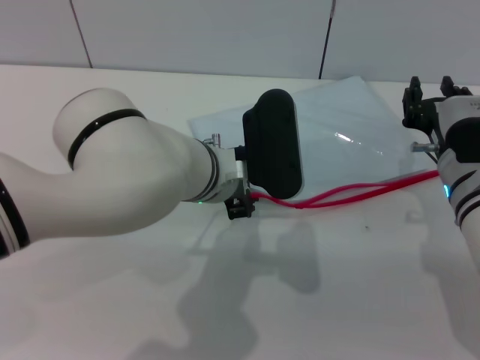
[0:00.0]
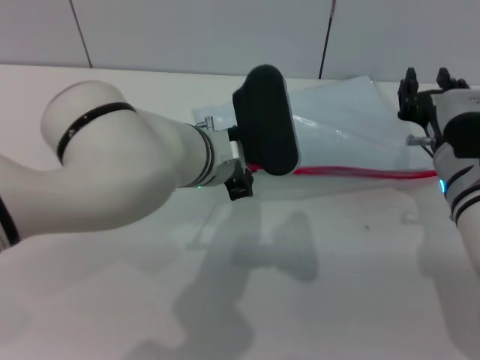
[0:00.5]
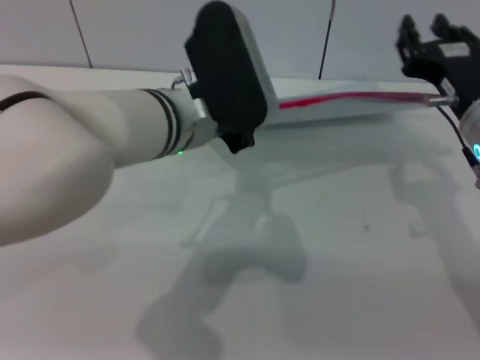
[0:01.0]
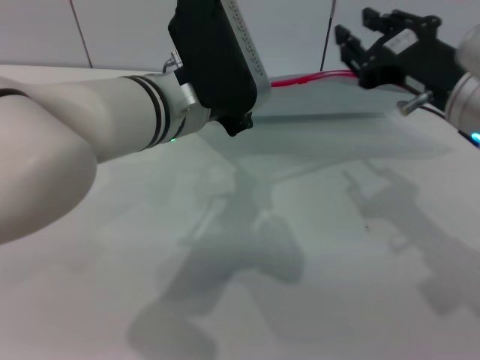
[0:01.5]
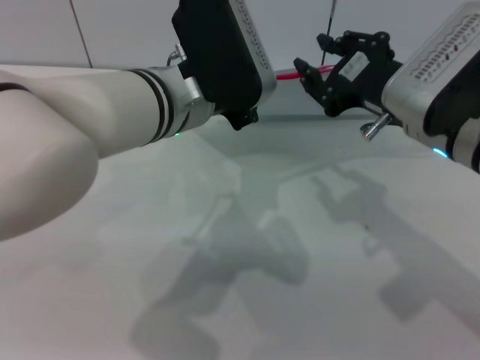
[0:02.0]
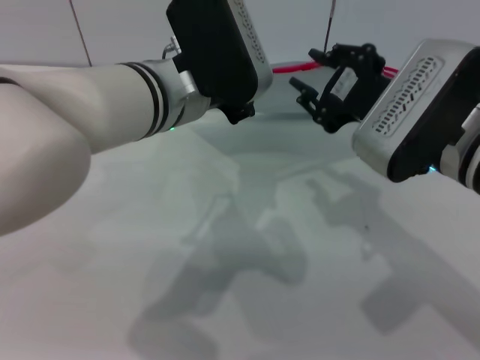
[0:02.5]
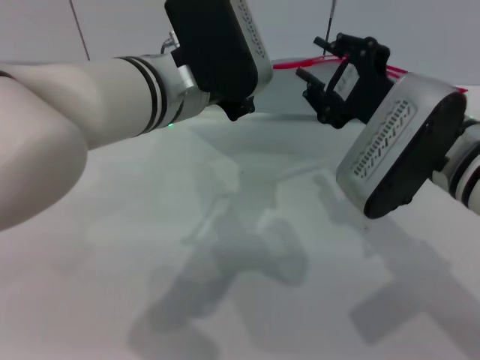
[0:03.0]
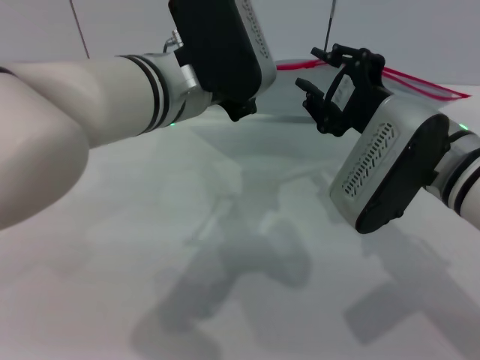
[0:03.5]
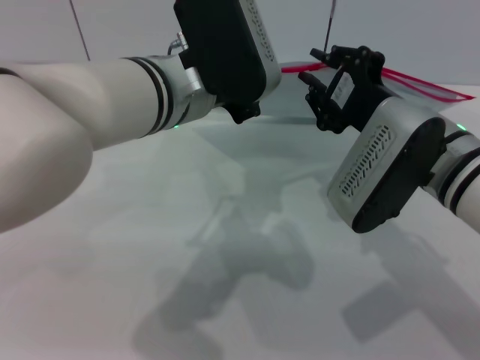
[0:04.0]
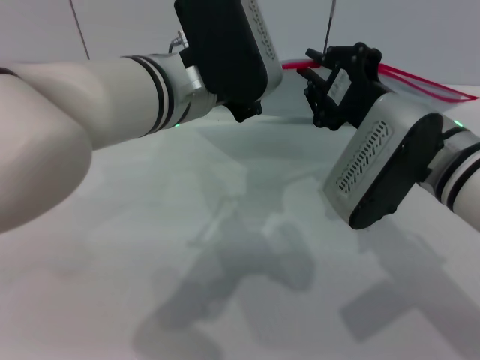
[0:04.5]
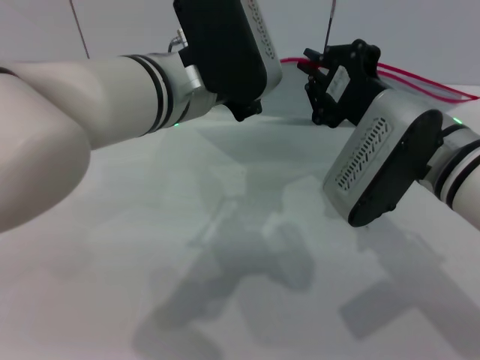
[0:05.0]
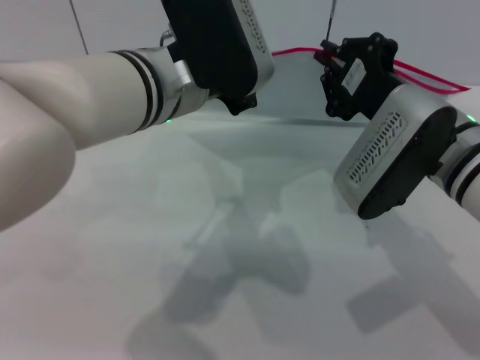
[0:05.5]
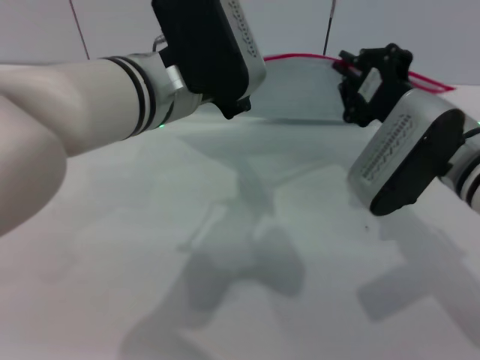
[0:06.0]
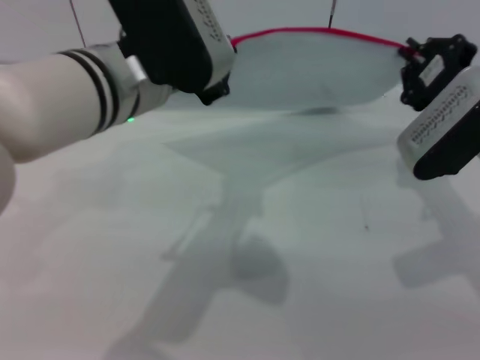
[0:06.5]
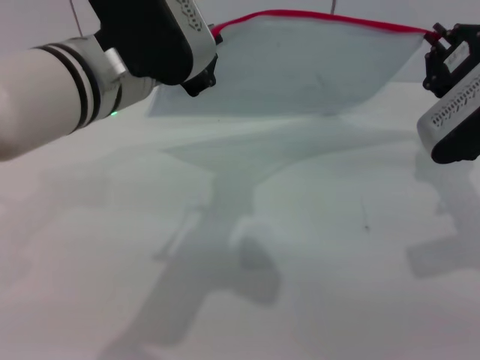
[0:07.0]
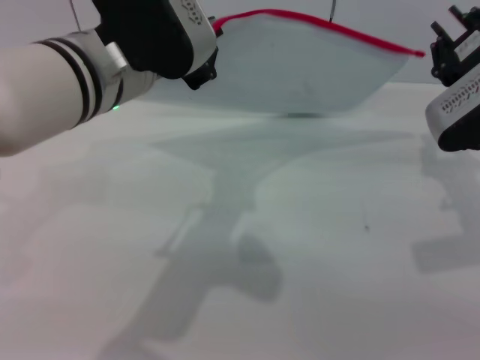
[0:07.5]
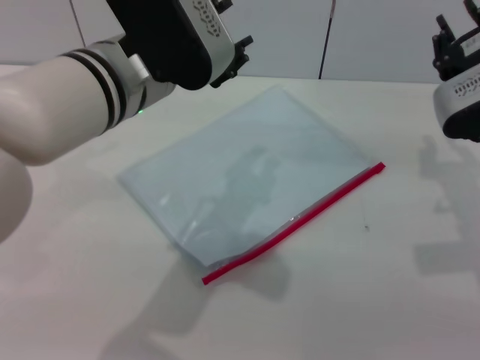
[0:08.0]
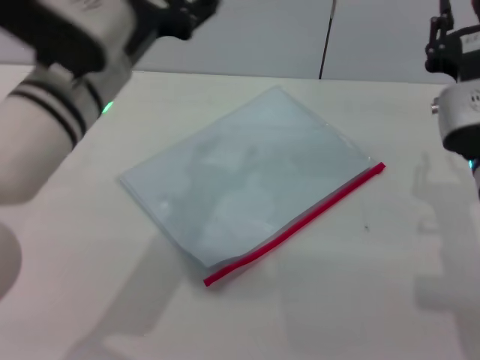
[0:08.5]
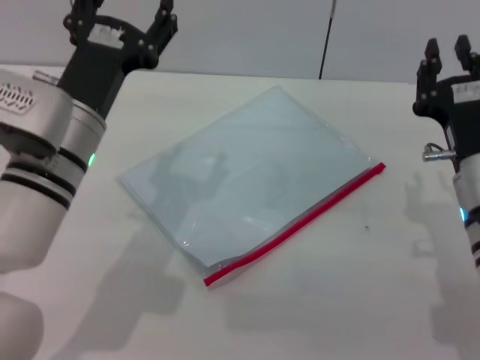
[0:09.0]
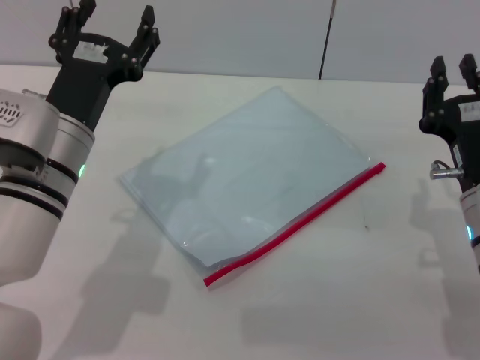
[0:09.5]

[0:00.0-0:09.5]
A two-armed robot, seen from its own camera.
Step, 0:01.0 to 0:07.5: Pulling up the zipper on the transparent plastic bag with the right gripper to close it.
Step, 0:08.0 to 0:09.0: Place the transparent plastic bag.
0:00.0 to 0:02.0: Both grippers move upward, approximately 10 cm. The left gripper closes its fingers.
0:04.0 to 0:05.5: The right gripper closes up.
0:05.5 to 0:07.5: The right gripper goes approximately 10 cm to the right.
0:07.5 to 0:09.5: The left gripper travels downward and to the left by approximately 15 cm, and opens its fingers, while the right gripper is displaced backward and downward by about 10 cm, and opens its fingers.

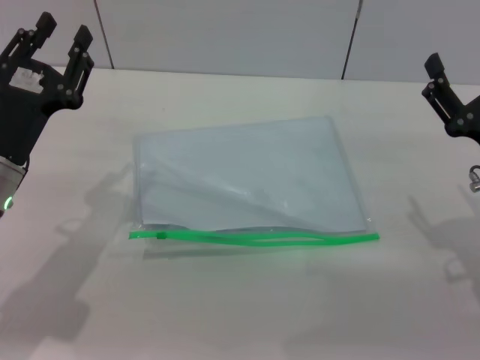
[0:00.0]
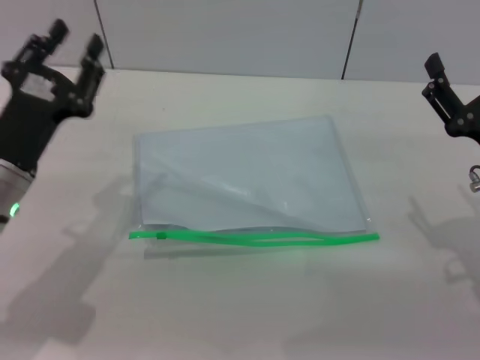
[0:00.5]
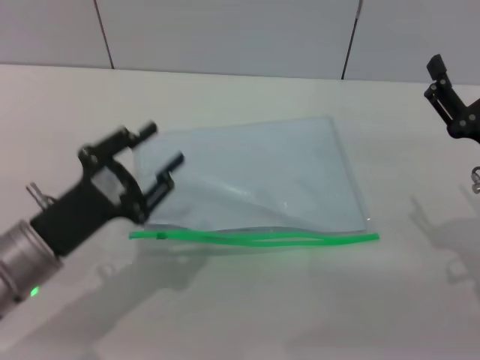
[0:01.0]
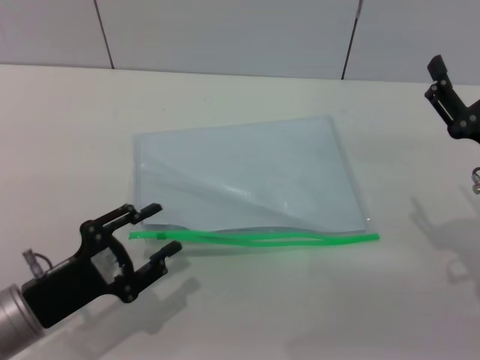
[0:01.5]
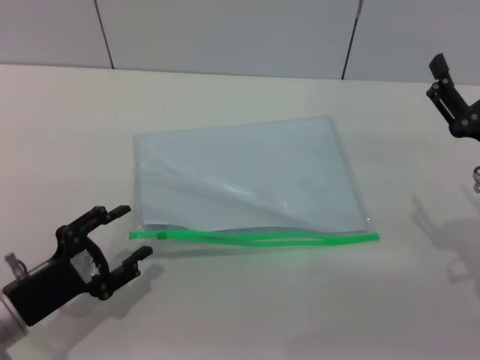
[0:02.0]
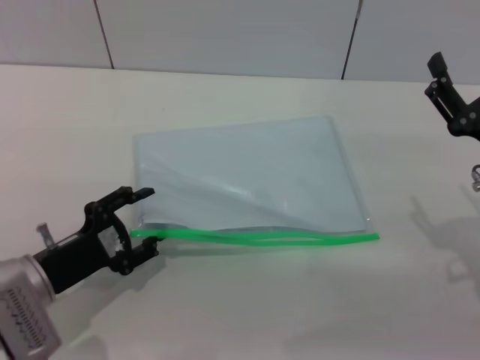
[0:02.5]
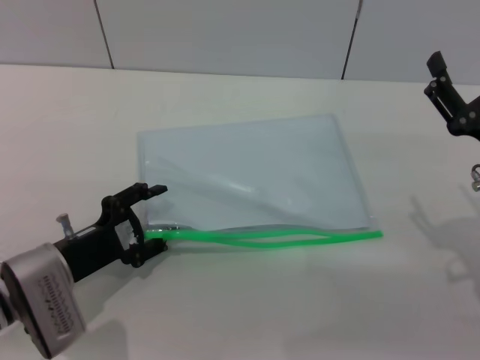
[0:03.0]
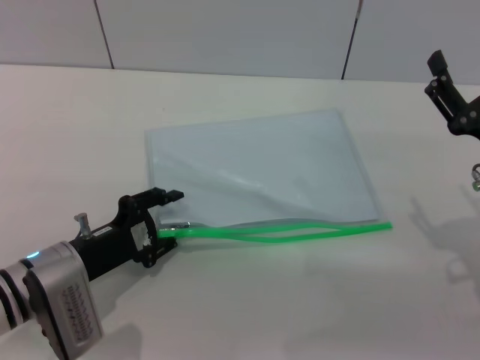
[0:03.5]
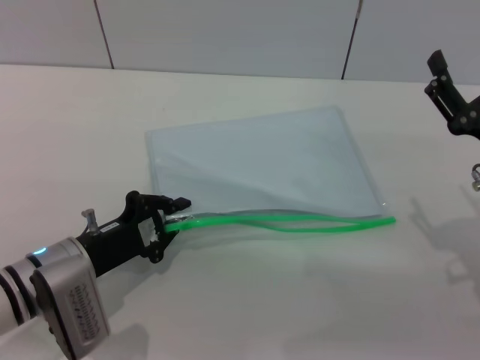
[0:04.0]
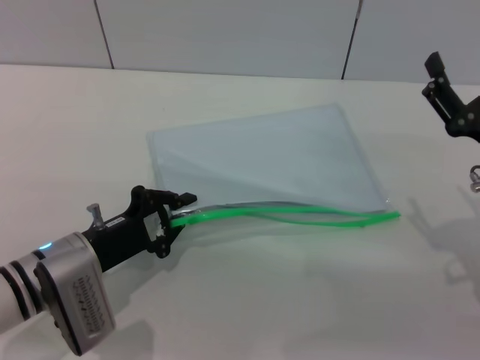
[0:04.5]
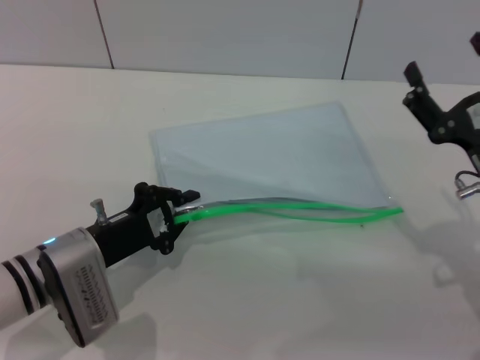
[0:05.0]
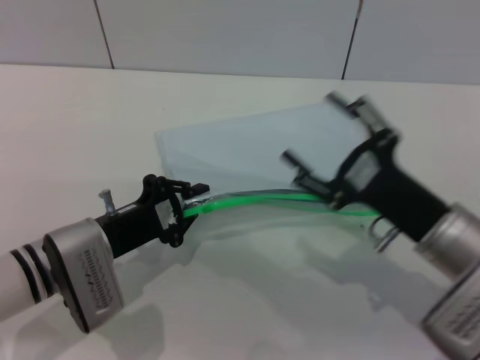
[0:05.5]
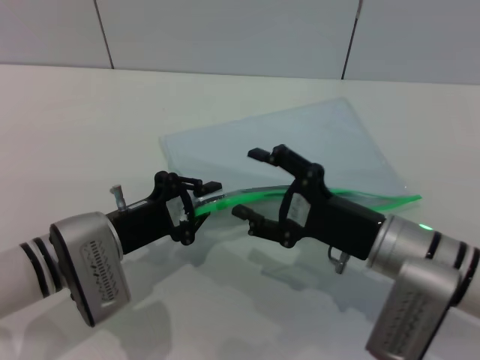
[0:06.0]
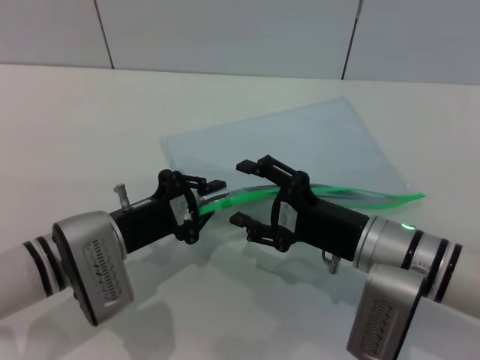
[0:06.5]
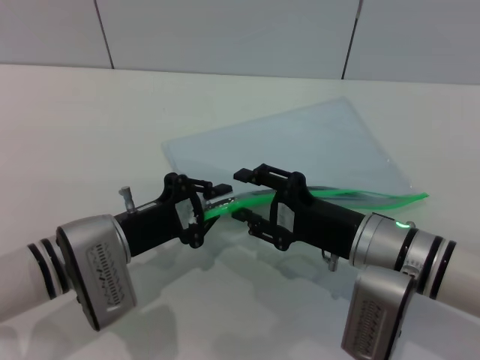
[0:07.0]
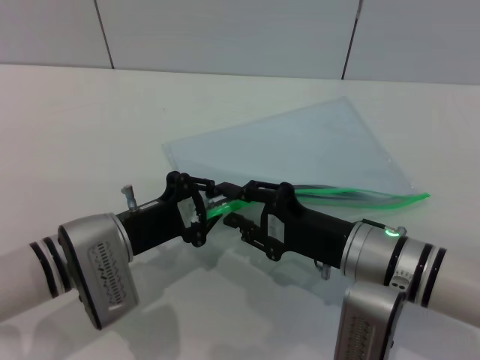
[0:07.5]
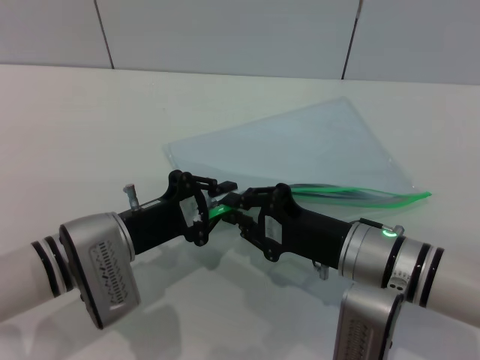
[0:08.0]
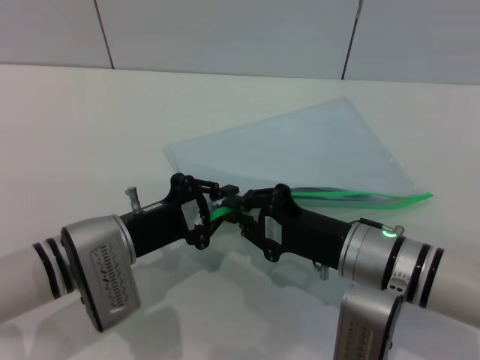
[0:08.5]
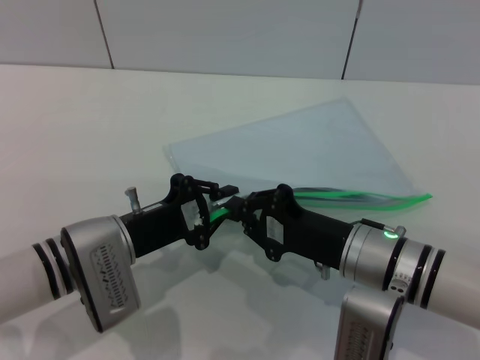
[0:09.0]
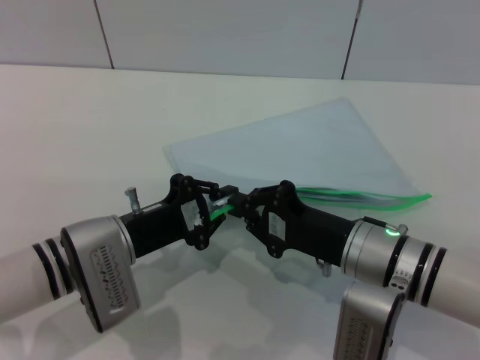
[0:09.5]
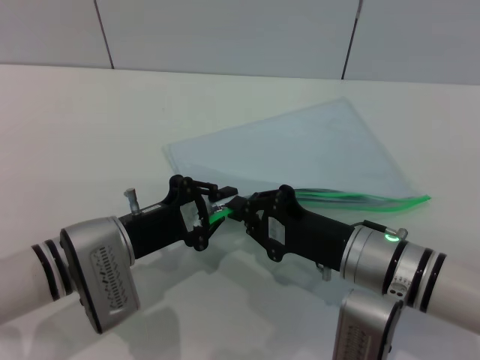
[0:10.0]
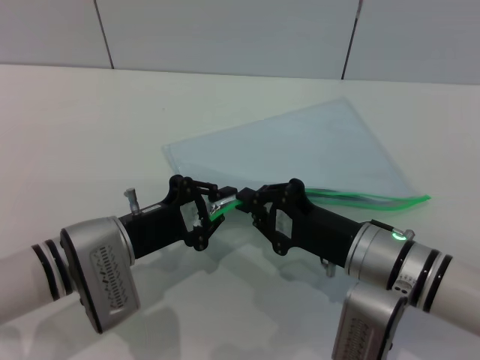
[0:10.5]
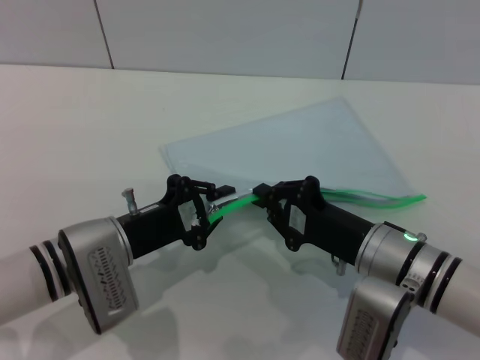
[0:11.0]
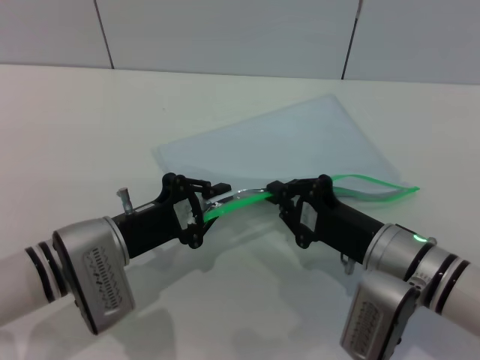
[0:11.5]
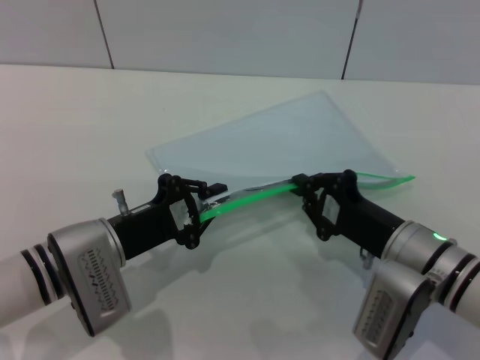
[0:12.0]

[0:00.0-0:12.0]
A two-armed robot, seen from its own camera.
Step, 0:00.0 to 0:06.0: Pick up the transparent plastic bag with the left gripper.
0:00.0 to 0:02.0: The left gripper moves backward and downward, roughly 10 cm.
0:02.0 to 0:04.0: The left gripper is displaced forward by some 5 cm, and closes its fingers.
0:04.0 to 0:06.0: The left gripper closes its fingers, while the right gripper moves to the left, some 10 cm.
0:06.0 to 0:08.0: The right gripper closes.
0:08.0 to 0:10.0: Neither gripper changes place.
0:10.0 to 0:12.0: The grippers make only small movements.

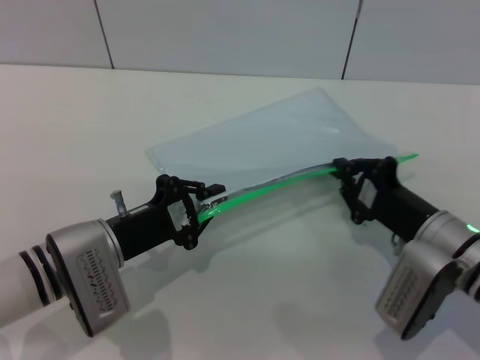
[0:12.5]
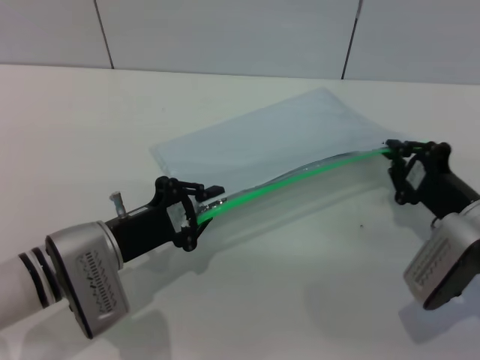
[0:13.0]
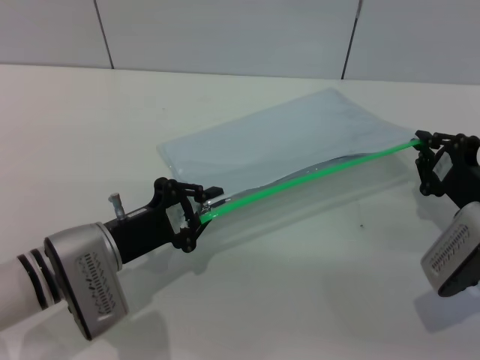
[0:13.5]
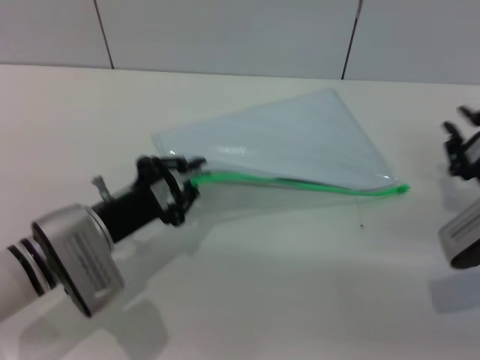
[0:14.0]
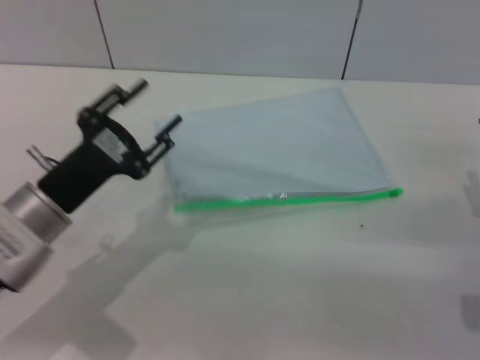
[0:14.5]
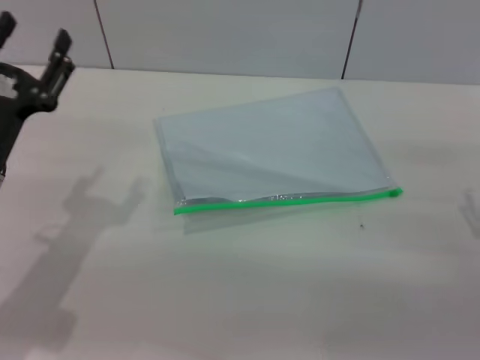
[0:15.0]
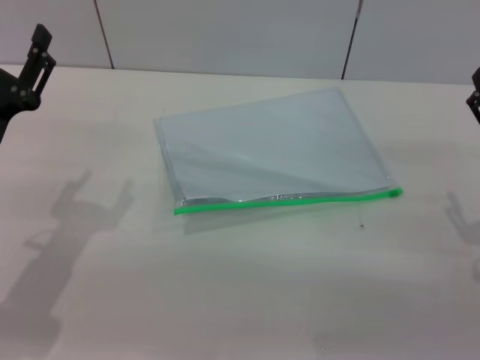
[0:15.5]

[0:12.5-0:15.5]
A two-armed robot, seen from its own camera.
0:12.5 to 0:14.0: The right gripper travels to the right by approximately 5 cm.
0:14.0 to 0:15.5: The left gripper heads to the left and upward, covering roughly 10 cm, and opens up, while the right gripper shifts by about 5 cm, and opens.
